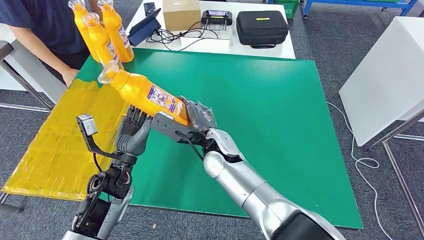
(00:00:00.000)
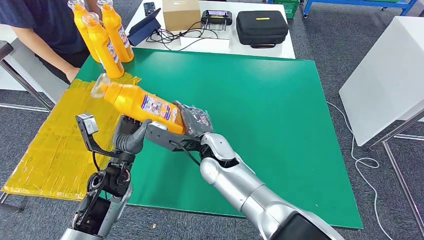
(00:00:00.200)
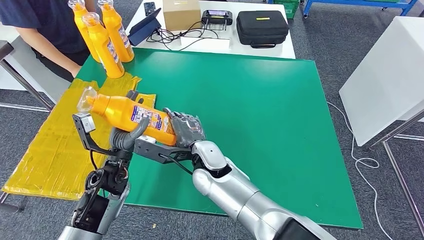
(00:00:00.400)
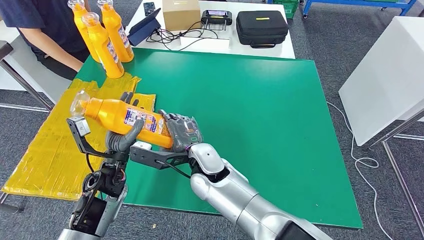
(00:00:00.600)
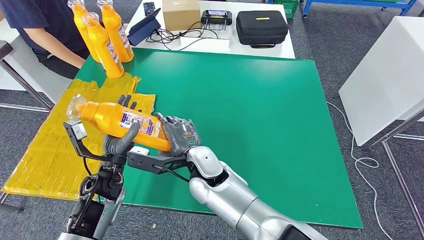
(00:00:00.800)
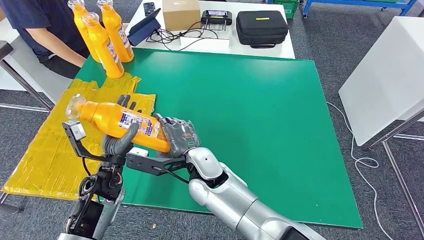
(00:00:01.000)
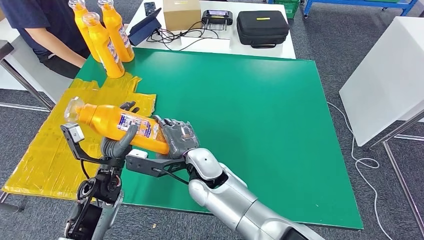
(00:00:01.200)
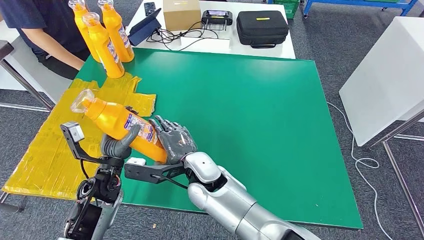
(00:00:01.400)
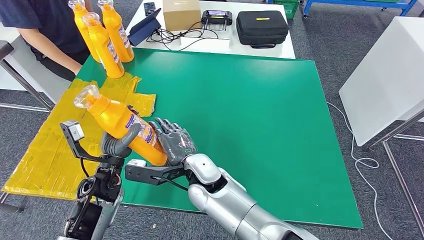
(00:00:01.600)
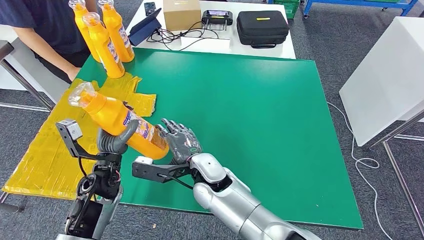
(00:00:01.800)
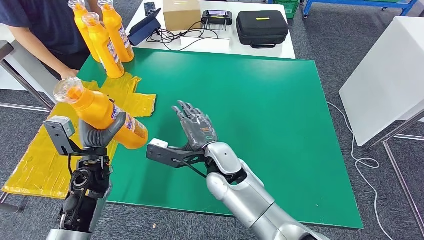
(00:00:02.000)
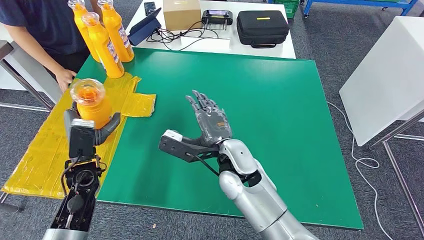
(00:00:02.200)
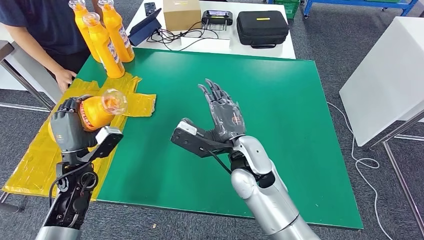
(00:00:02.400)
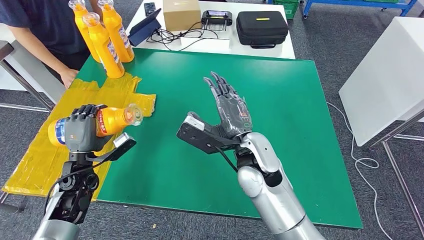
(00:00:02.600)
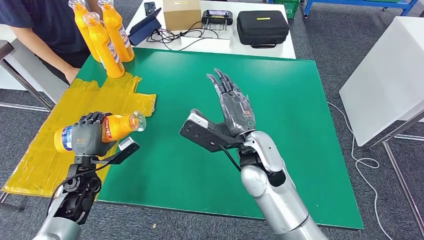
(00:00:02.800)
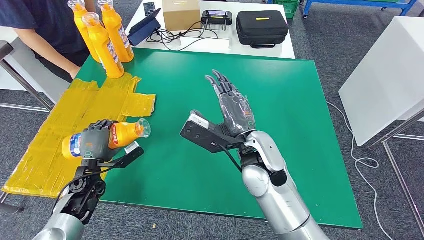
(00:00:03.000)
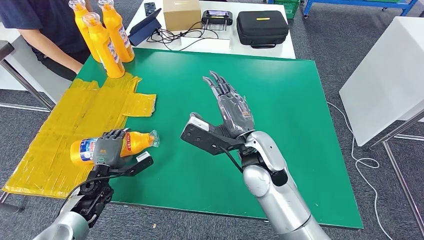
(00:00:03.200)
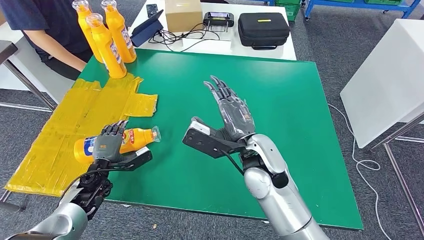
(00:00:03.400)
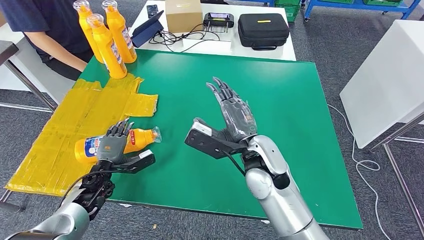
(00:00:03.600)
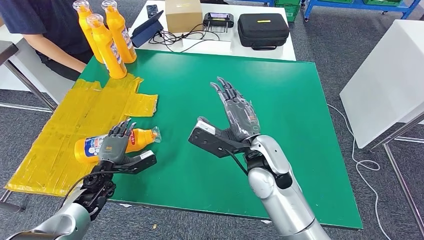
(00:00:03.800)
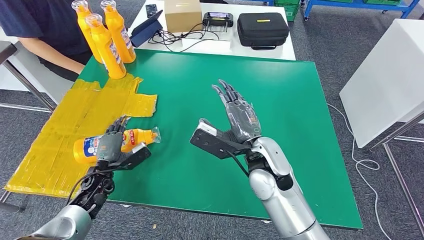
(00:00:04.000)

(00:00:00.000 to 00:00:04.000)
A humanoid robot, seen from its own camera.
Step, 00:00:01.200 - 00:00:04.000: Flip the bottle to face forward.
